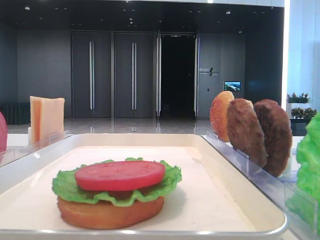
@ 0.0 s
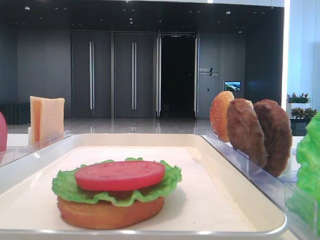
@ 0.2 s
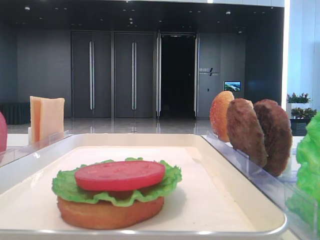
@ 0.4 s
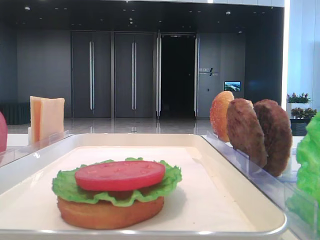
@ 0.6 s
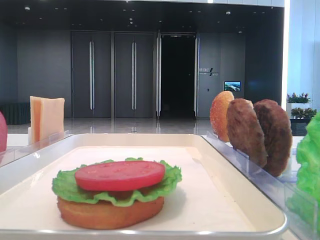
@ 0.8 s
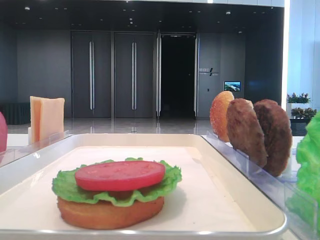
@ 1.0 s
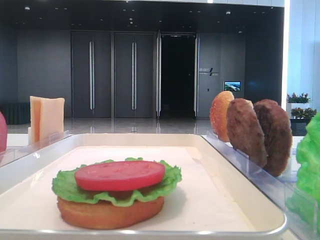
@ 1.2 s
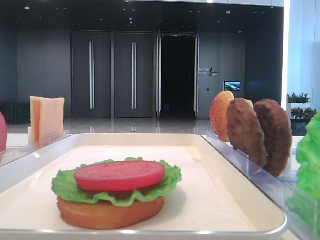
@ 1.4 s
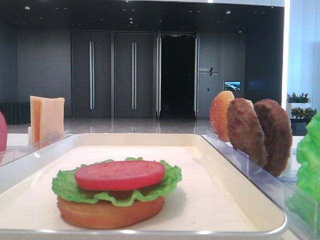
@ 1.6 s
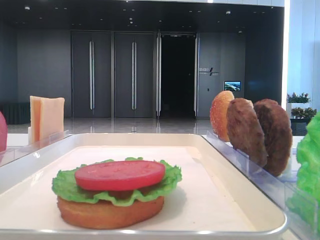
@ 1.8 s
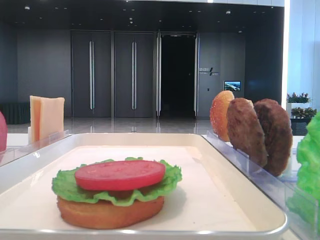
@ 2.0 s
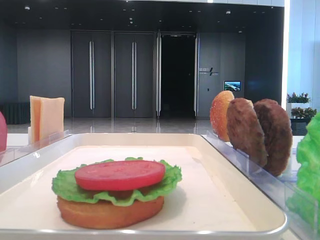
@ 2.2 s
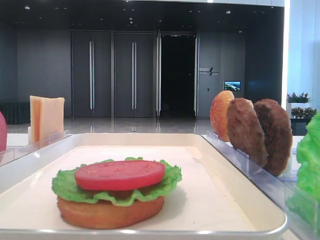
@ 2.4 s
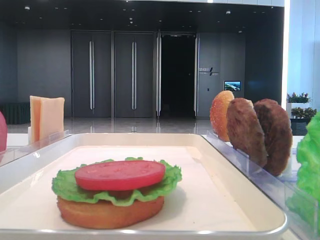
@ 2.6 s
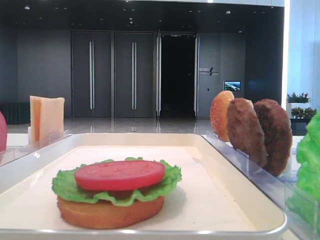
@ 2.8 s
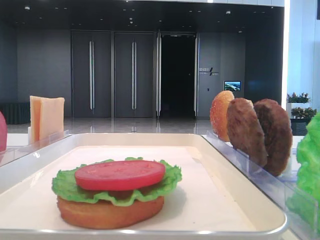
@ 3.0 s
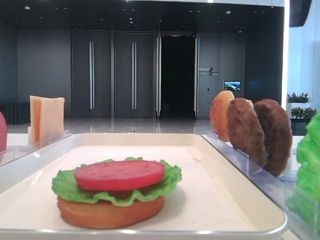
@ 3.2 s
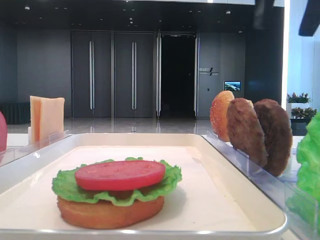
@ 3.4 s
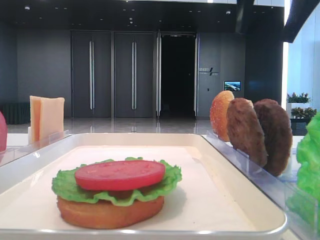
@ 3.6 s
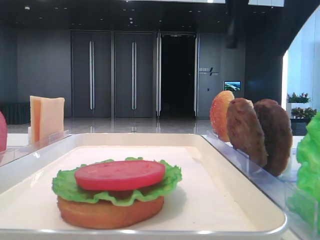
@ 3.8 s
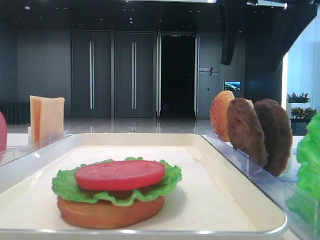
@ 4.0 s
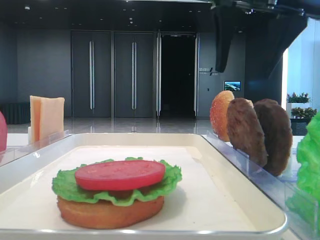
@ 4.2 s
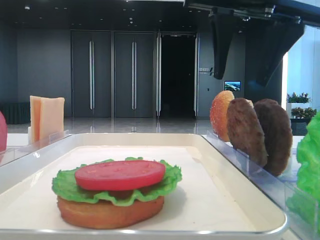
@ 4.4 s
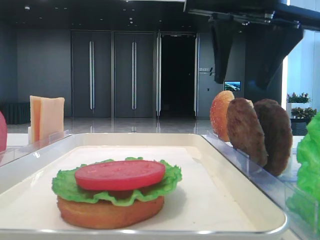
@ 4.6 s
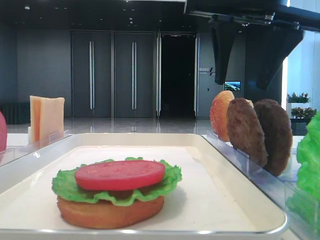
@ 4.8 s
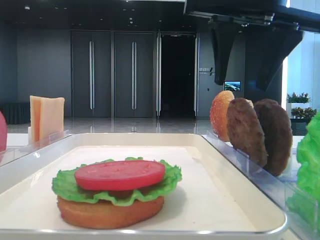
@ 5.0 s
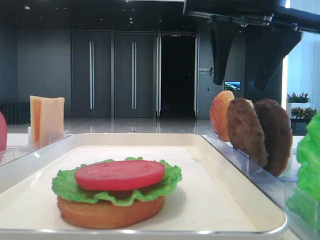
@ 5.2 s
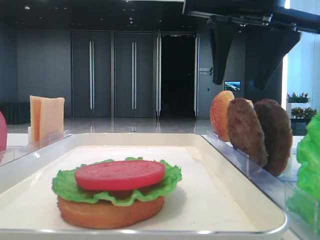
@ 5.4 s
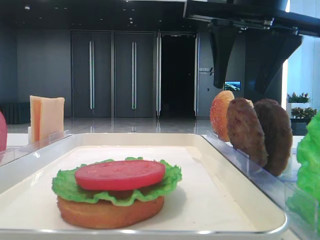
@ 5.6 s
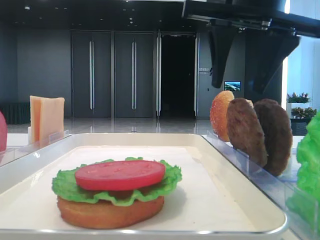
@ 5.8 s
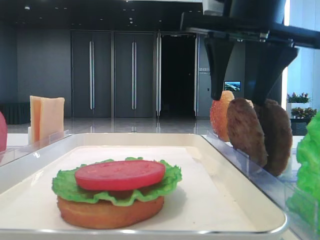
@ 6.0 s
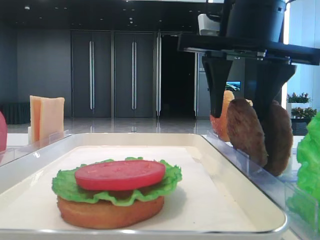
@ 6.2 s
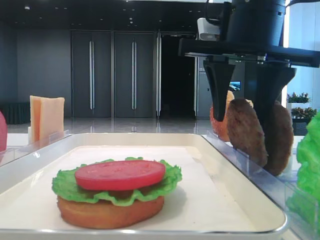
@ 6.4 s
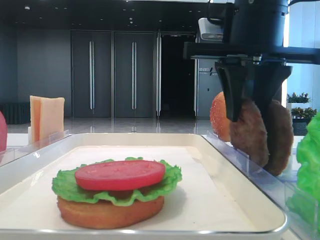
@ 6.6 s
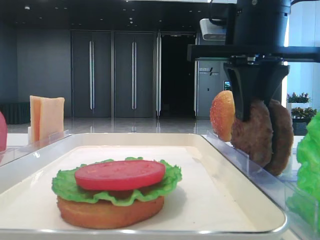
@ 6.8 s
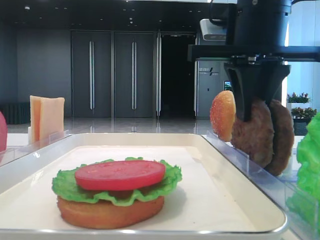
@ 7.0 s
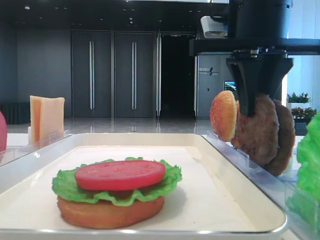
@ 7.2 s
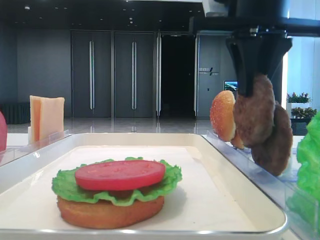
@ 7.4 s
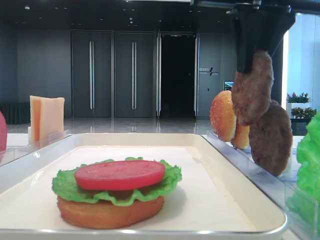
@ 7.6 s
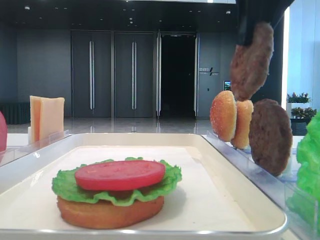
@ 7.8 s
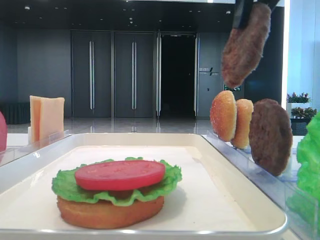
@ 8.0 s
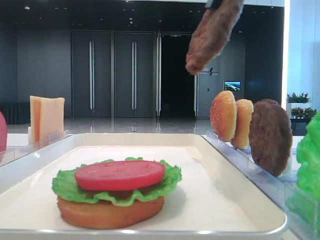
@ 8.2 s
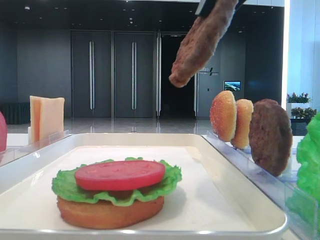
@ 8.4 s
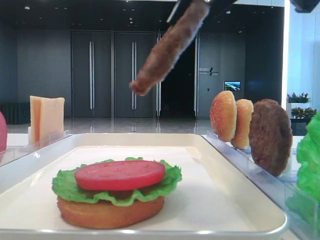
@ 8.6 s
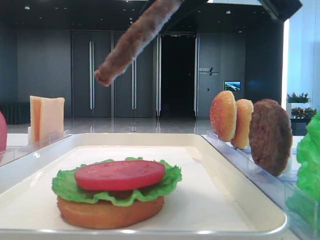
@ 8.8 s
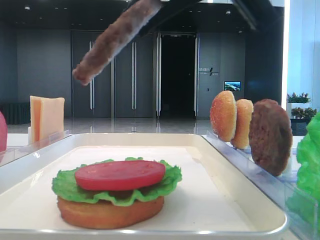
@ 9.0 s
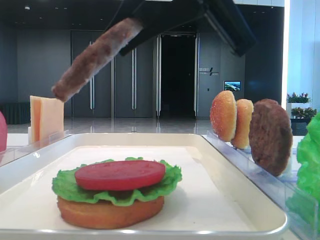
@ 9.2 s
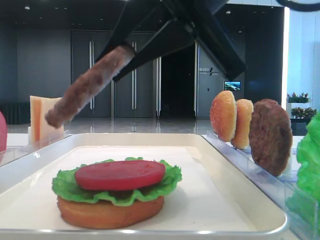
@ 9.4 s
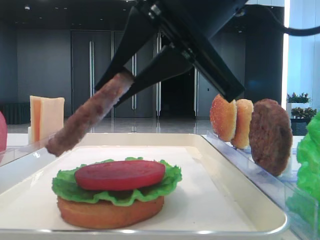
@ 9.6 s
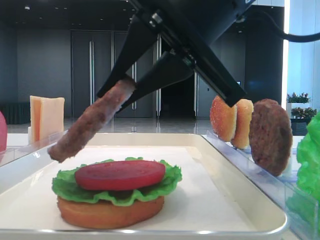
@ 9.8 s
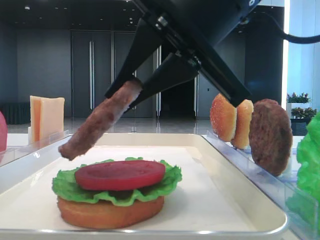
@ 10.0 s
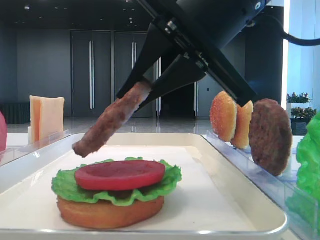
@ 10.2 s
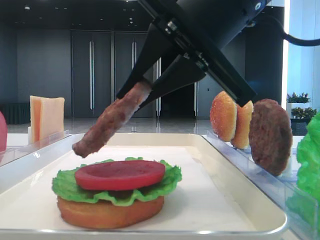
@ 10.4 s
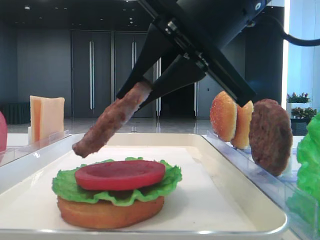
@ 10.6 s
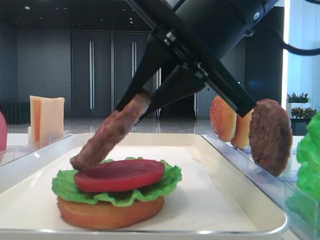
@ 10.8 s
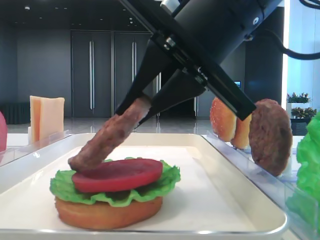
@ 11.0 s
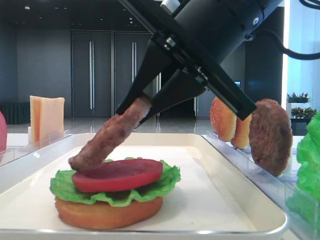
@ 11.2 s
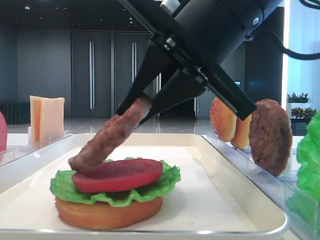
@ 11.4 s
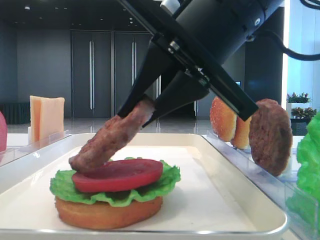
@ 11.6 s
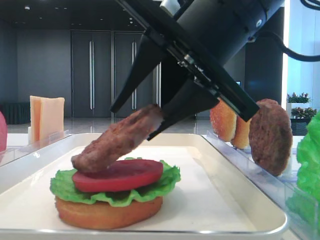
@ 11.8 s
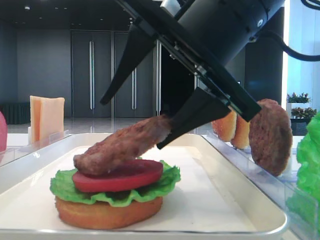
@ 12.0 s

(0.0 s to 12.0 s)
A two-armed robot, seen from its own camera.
Step, 0.0 s - 7.0 s: Grab the patty with the right hand.
3.0 s - 4.4 s: The right gripper moves to the left and downward, about 15 cm.
4.4 s - 6.0 s: The grippers make only small movements.
6.0 s - 7.6 s: The right gripper closes up.
7.6 s - 9.0 s: The right gripper shifts roughly 10 cm backward.
9.0 s - 10.4 s: The right gripper moves downward, roughly 5 cm.
10.4 s - 12.0 s: The right gripper opens its fingers.

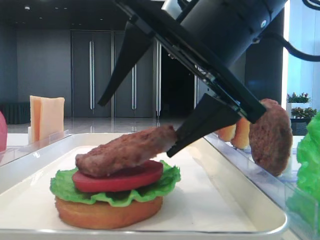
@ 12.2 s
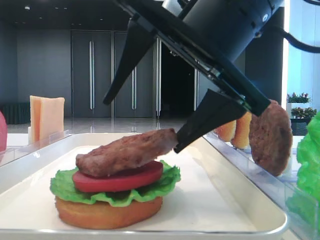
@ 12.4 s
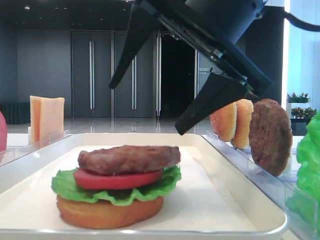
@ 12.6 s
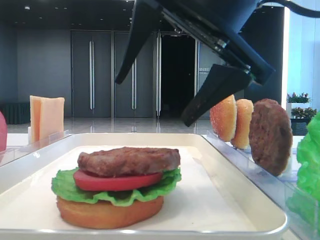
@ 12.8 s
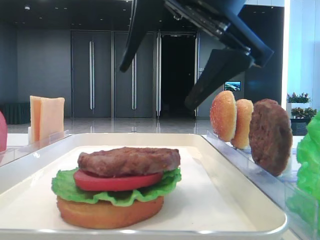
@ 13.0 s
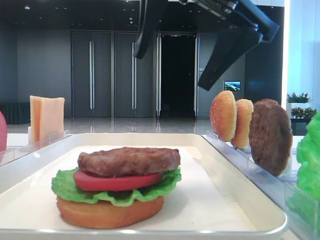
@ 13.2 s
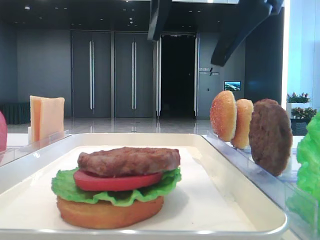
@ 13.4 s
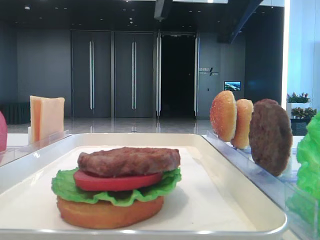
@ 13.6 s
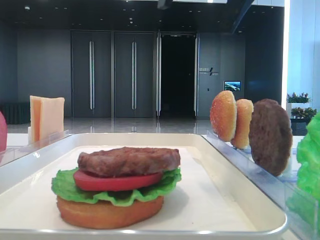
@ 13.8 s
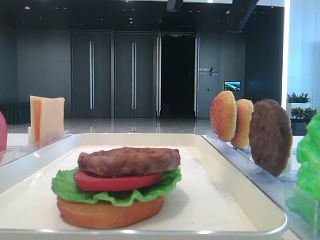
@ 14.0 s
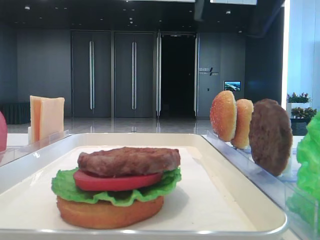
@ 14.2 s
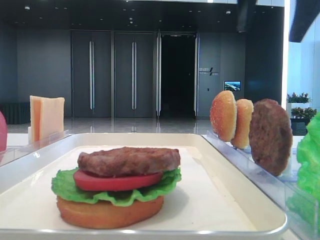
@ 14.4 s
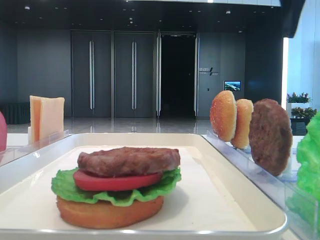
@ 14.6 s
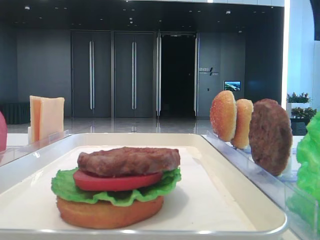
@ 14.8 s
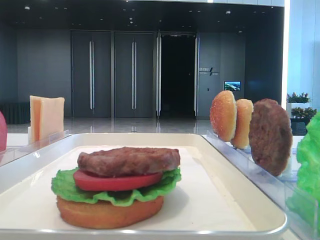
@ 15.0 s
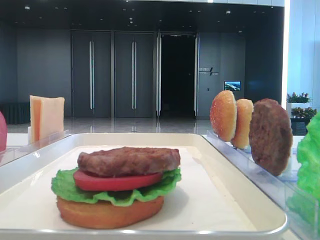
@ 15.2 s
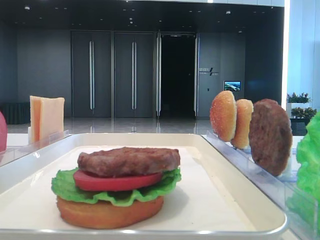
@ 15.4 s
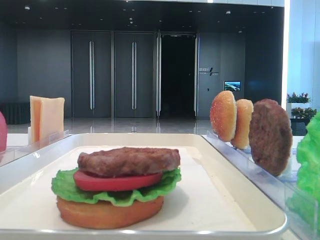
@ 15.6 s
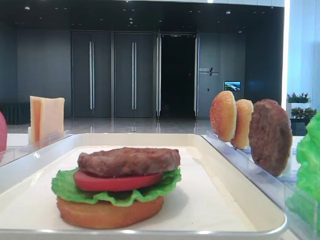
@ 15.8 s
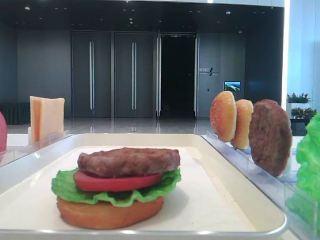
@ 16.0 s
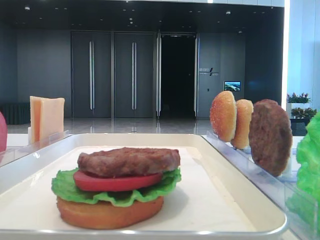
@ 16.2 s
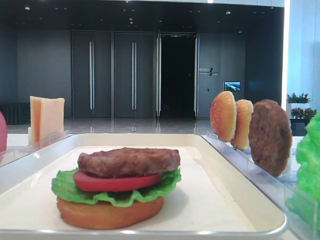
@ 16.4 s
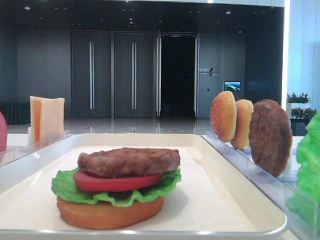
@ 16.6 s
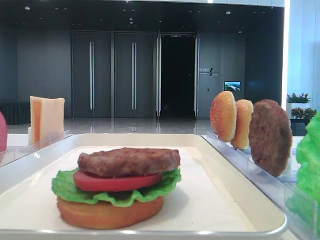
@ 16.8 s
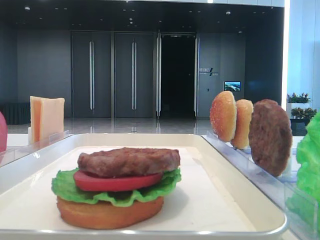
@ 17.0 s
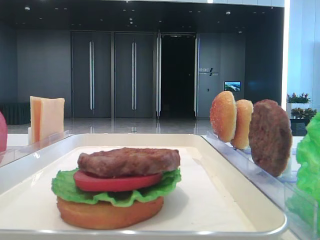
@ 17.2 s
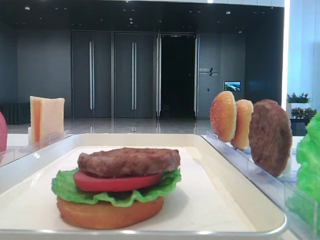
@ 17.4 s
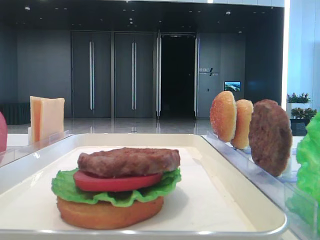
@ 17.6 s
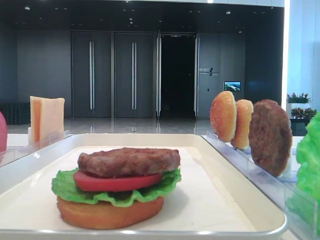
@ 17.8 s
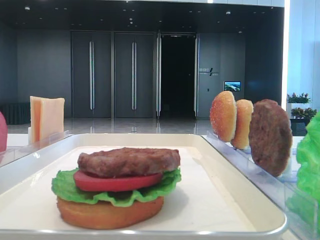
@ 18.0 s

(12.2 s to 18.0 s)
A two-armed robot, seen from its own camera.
12.2 s - 13.6 s: The right gripper travels upward by approximately 10 cm.
13.6 s - 15.0 s: The right gripper shifts about 20 cm to the right.

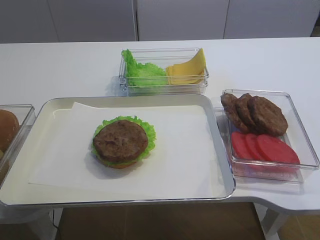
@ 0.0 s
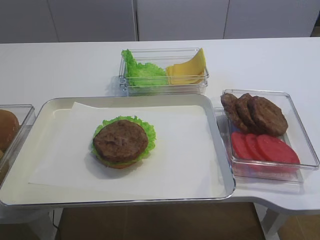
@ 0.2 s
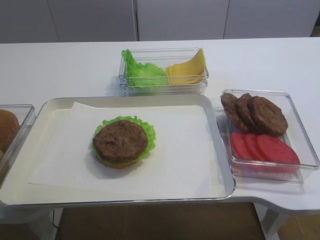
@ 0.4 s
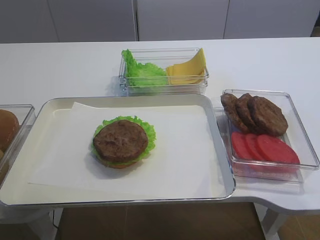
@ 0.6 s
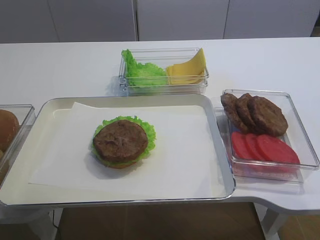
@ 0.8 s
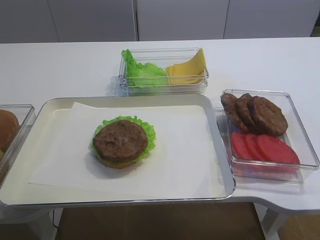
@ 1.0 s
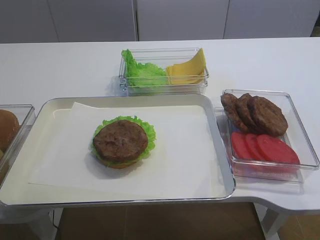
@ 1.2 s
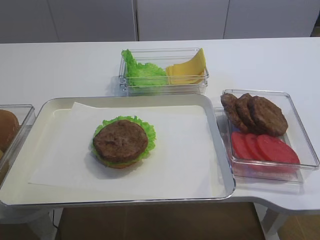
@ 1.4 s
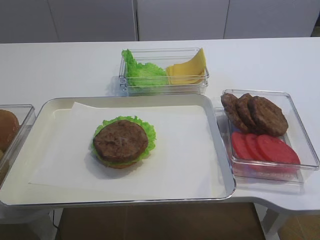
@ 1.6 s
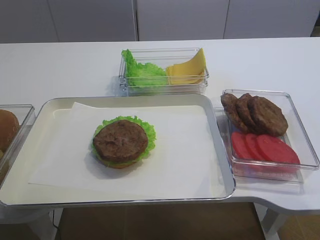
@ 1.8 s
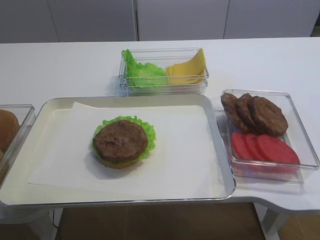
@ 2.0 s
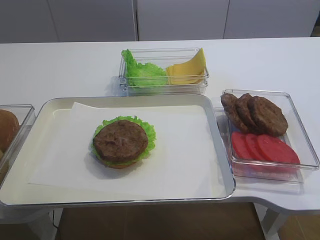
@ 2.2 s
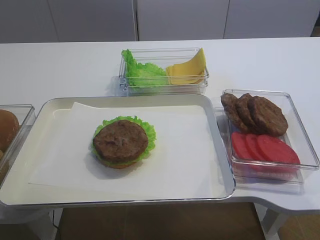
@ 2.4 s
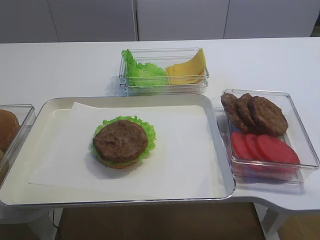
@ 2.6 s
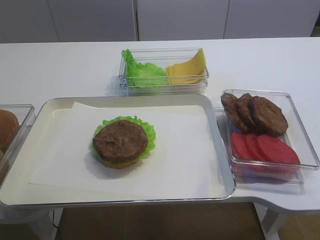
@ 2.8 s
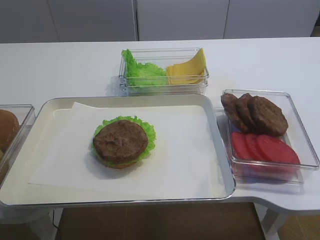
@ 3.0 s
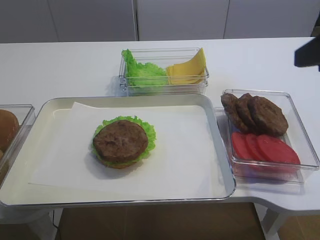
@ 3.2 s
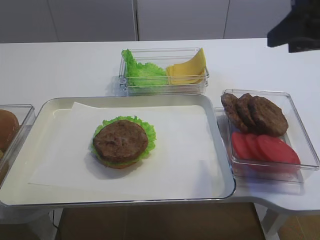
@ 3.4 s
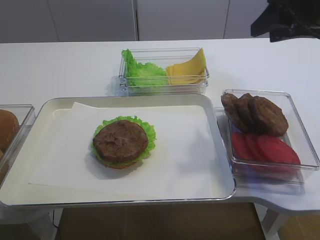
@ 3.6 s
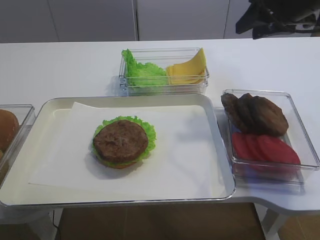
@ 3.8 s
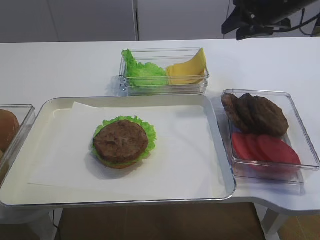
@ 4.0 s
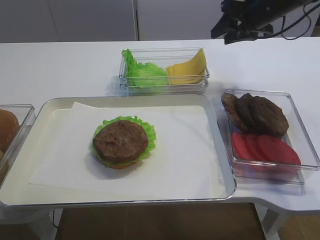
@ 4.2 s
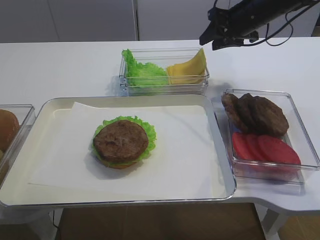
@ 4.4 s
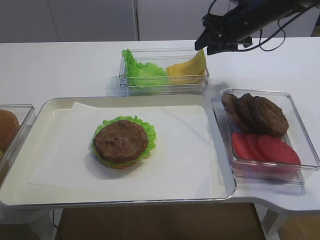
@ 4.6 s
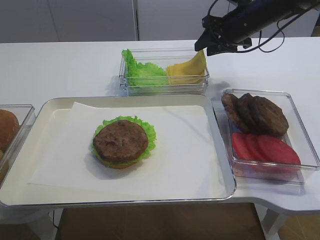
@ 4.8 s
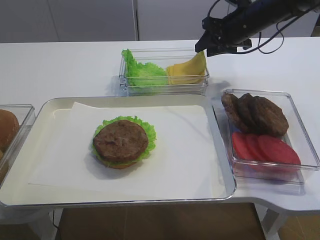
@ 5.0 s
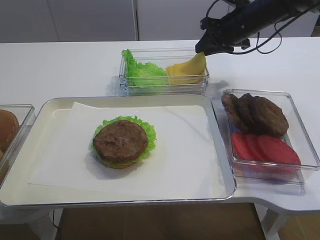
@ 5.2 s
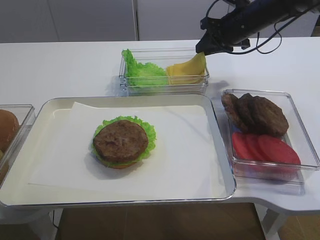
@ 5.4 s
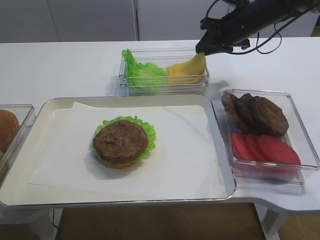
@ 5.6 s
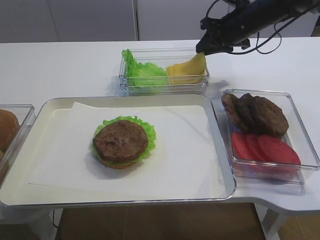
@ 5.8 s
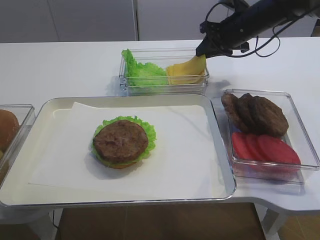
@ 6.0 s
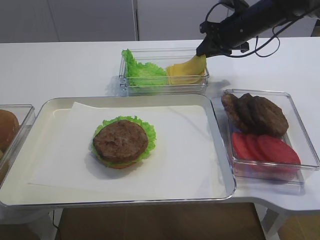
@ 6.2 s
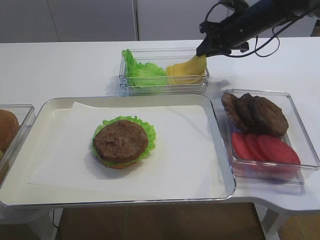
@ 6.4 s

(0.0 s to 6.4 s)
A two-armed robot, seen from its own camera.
1.6 s - 3.2 s: The right gripper moves forward and upward, approximately 20 cm, and opens.
3.2 s - 4.8 s: The right gripper is displaced forward by approximately 30 cm.
4.8 s - 6.4 s: The right gripper closes.
